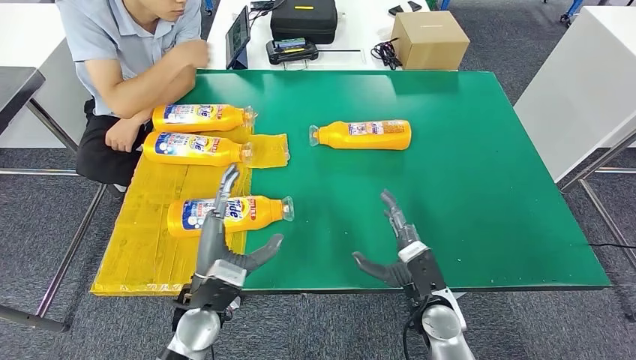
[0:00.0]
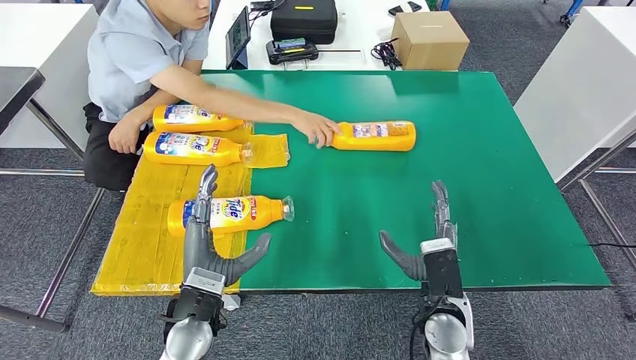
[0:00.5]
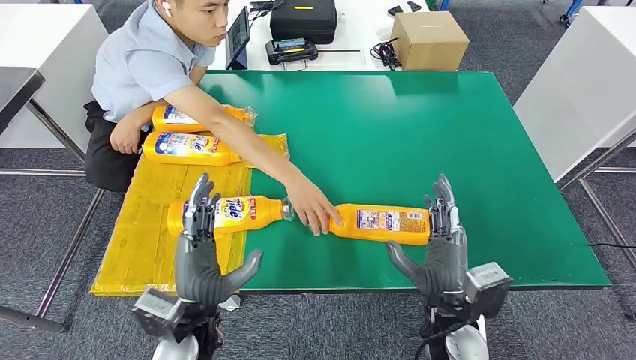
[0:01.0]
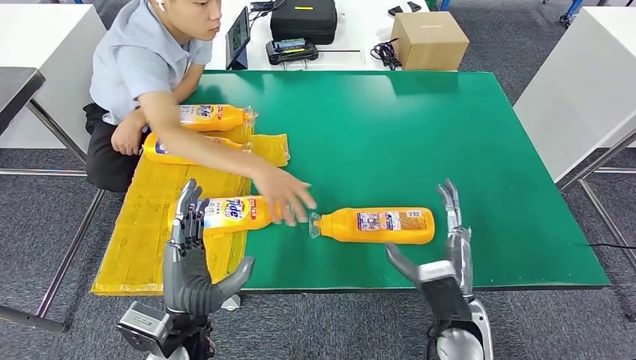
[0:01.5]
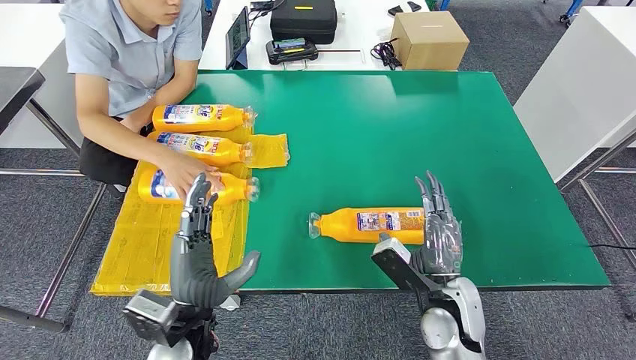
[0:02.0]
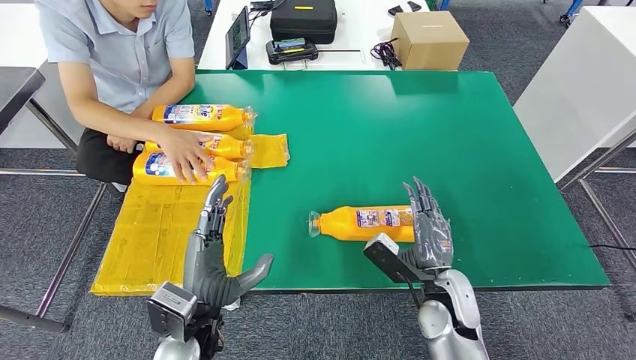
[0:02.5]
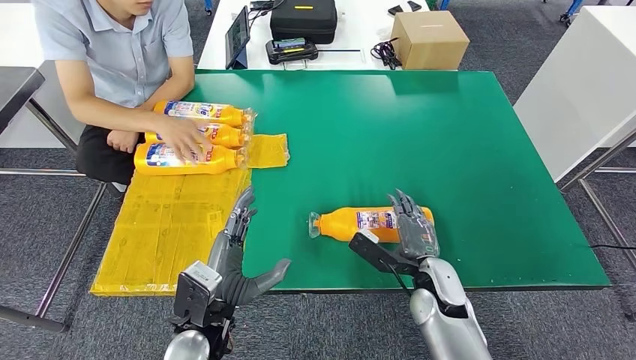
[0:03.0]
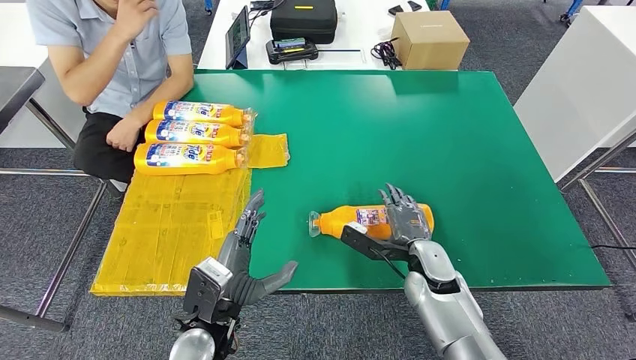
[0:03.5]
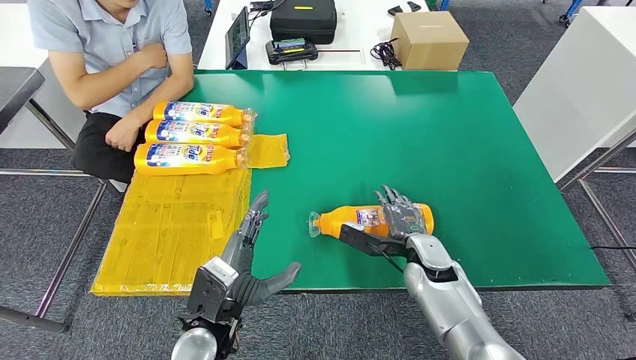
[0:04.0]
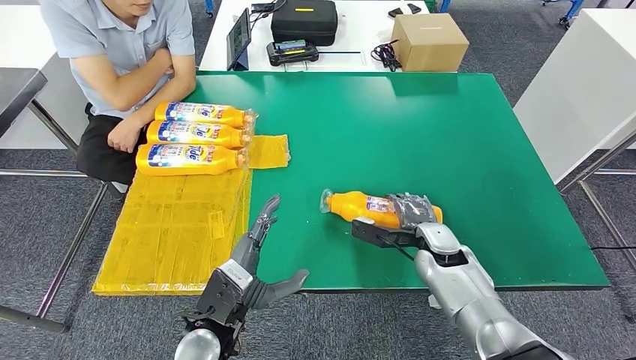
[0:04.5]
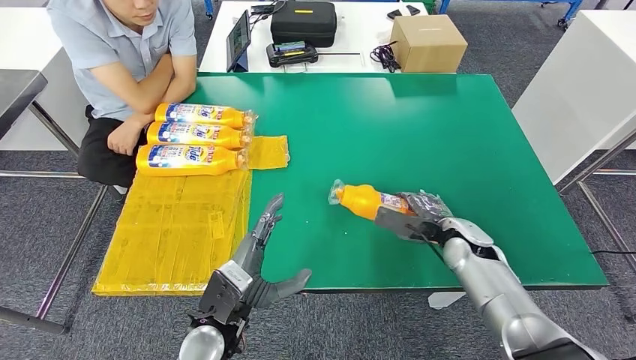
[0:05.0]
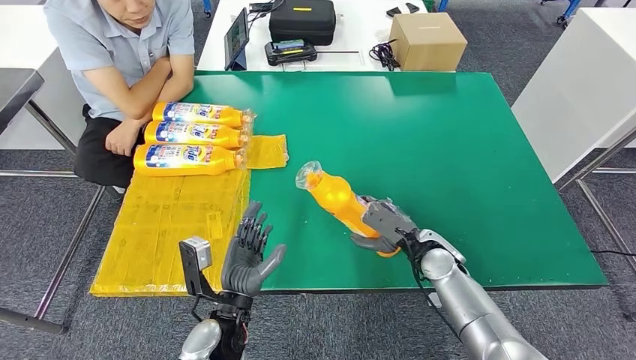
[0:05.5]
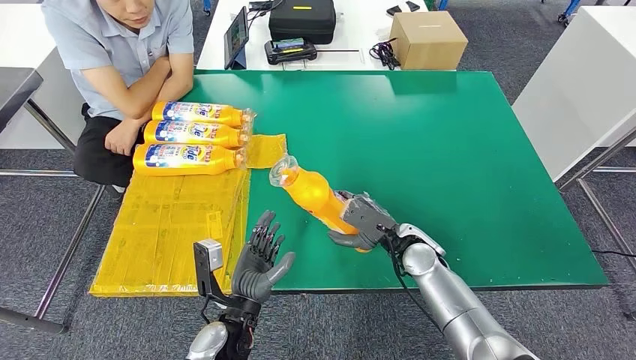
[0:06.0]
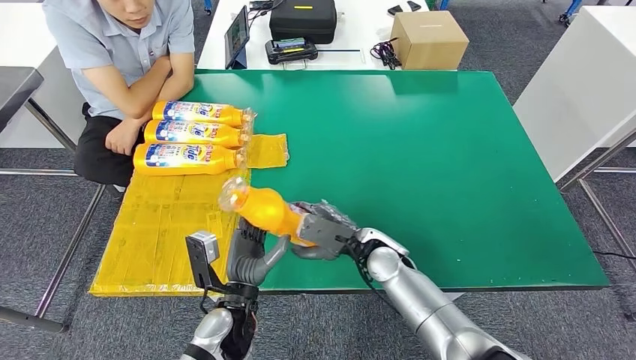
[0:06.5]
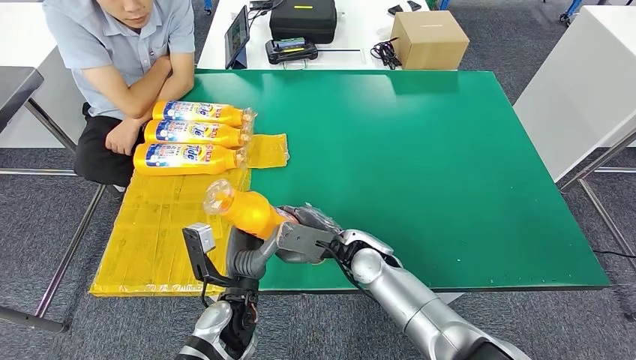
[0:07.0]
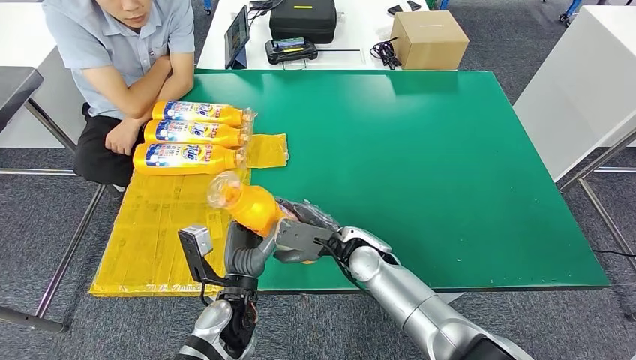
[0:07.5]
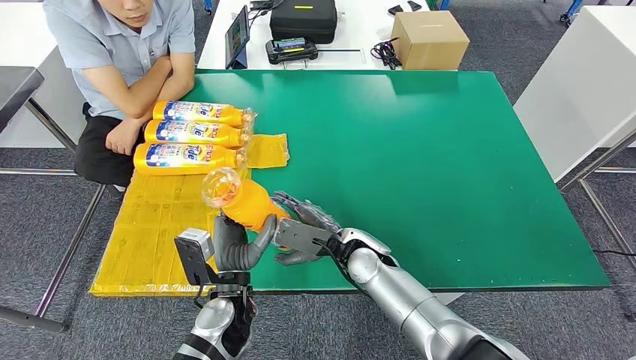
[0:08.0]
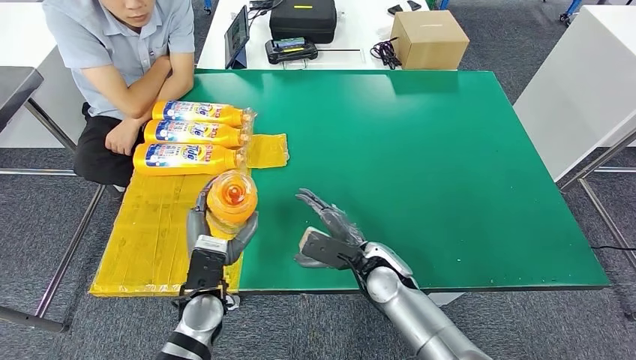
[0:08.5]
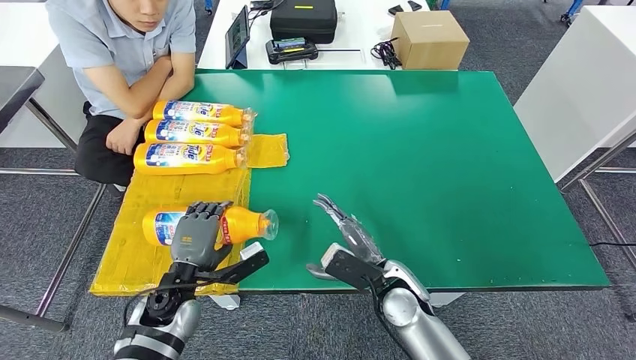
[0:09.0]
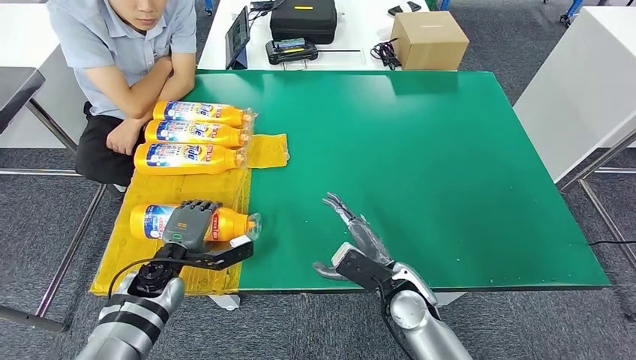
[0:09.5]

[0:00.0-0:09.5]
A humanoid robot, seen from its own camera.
Step, 0:00.0 to 0:06.0: Pick up the fast-moving consumer goods bottle from the table.
Step, 0:06.5 to 0:09.5: Flip the fast-moving consumer goods bottle to the front side.
0:02.0 to 0:04.0: The right hand goes about 10 cm forward.
0:04.0 to 0:05.5: The right hand goes to the right and returns, about 10 cm each way.
0:05.5 to 0:07.5: The right hand goes roughly 15 cm to the left.
0:07.5 to 0:09.5: The right hand goes approximately 10 cm backward and to the right. The left hand moves to the left and forward, roughly 15 cm.
